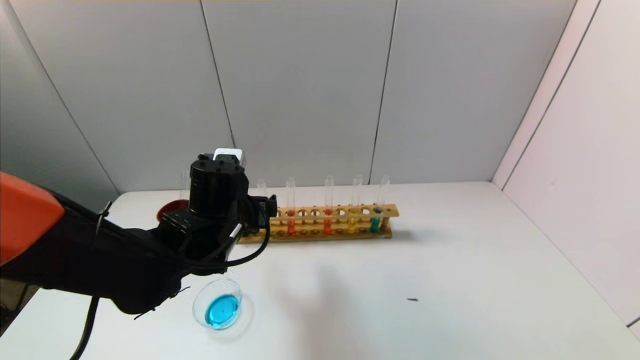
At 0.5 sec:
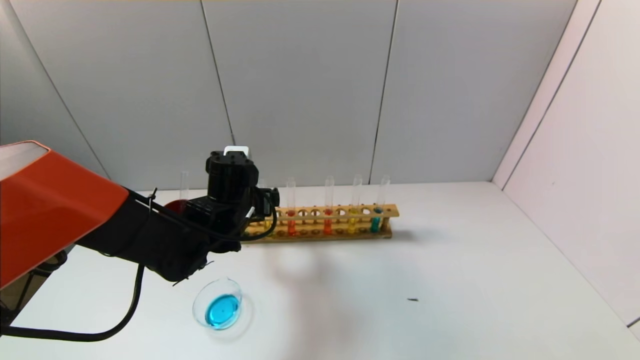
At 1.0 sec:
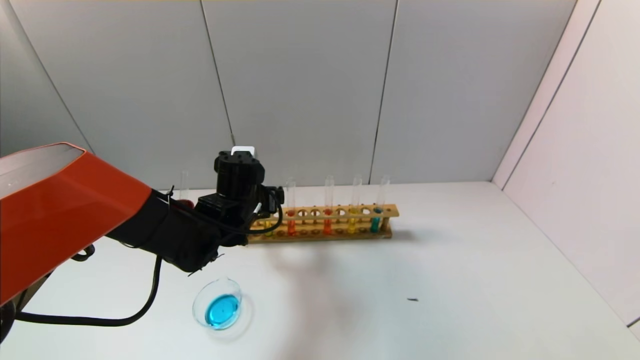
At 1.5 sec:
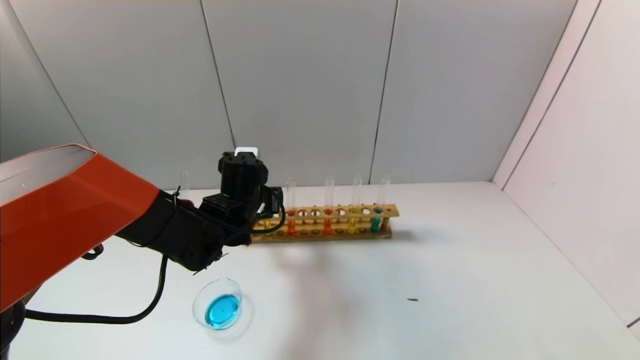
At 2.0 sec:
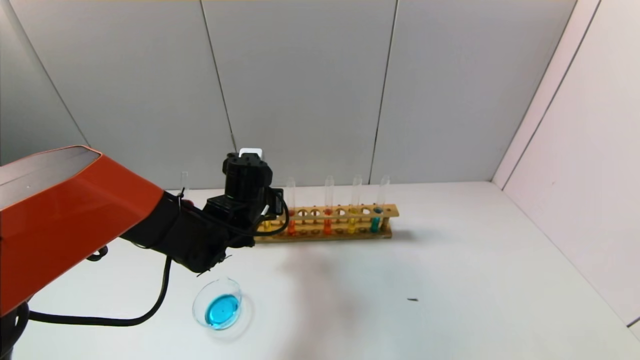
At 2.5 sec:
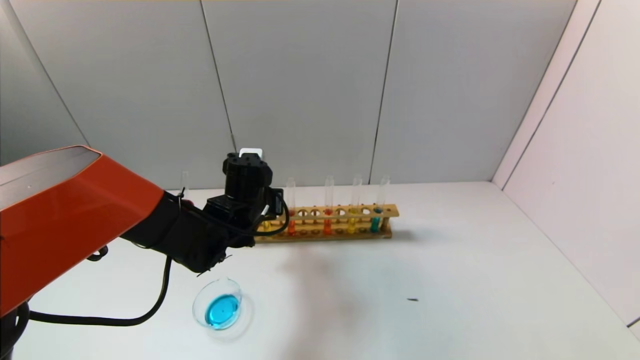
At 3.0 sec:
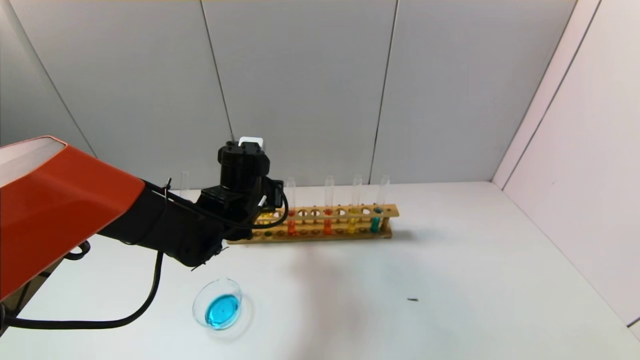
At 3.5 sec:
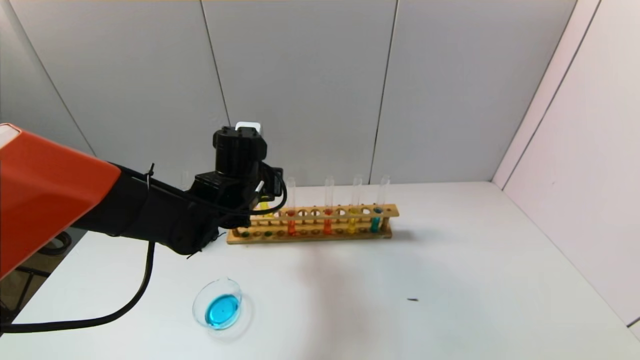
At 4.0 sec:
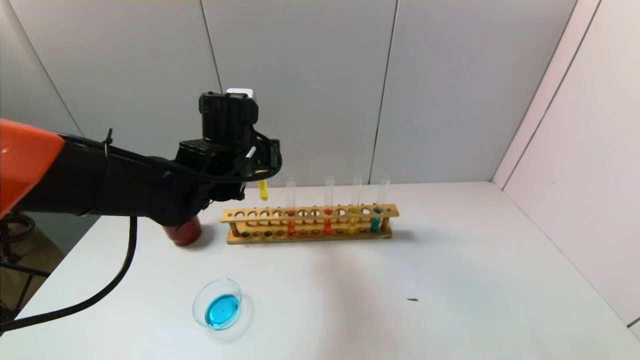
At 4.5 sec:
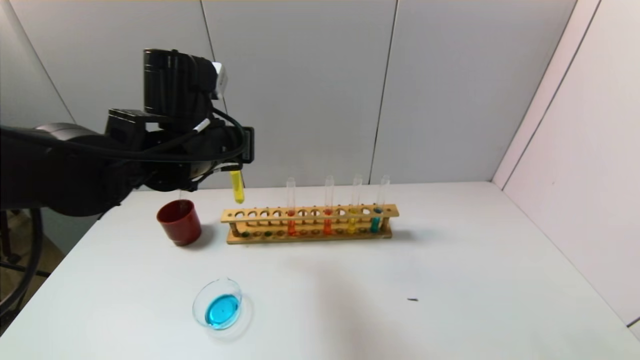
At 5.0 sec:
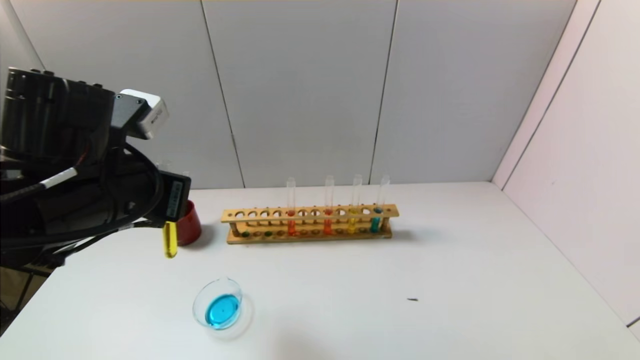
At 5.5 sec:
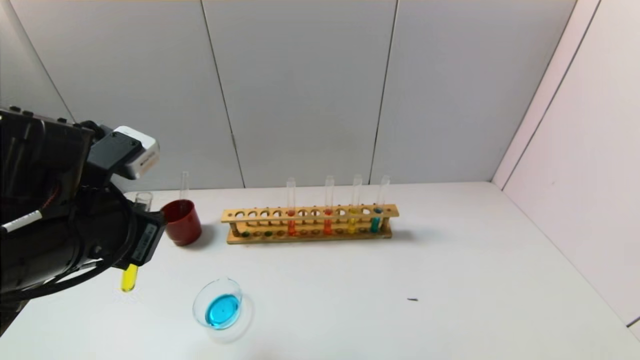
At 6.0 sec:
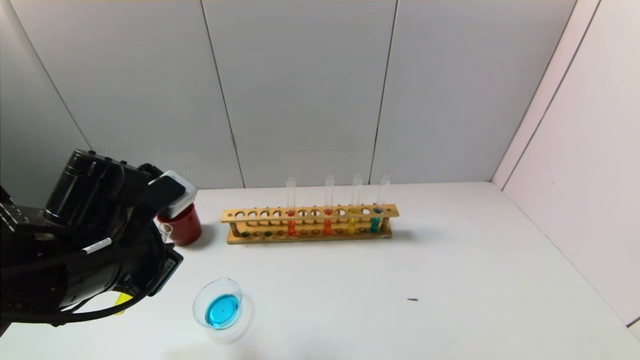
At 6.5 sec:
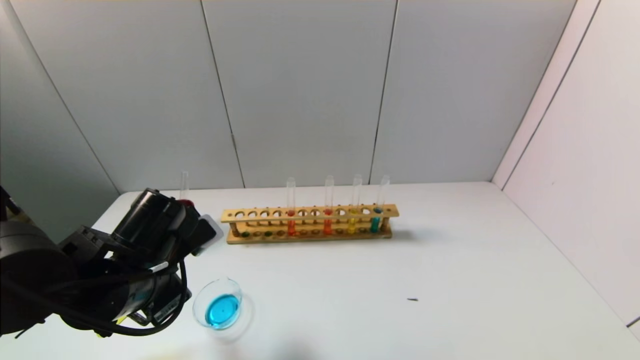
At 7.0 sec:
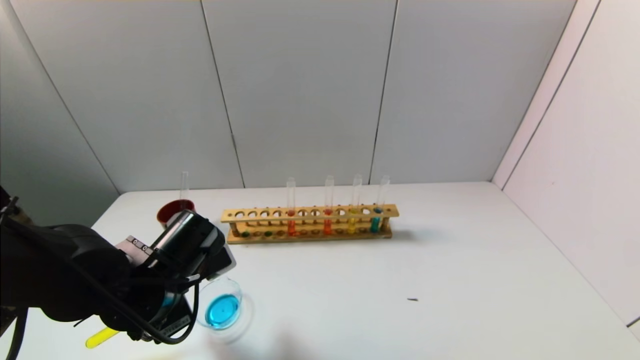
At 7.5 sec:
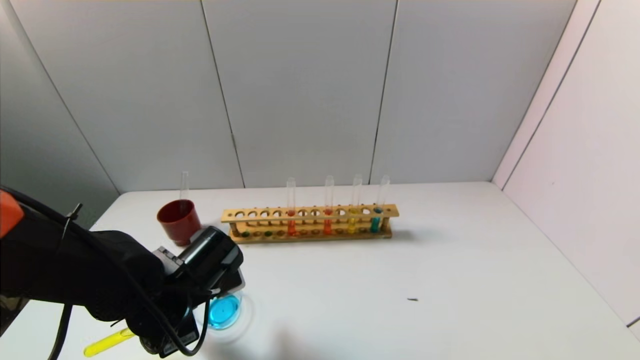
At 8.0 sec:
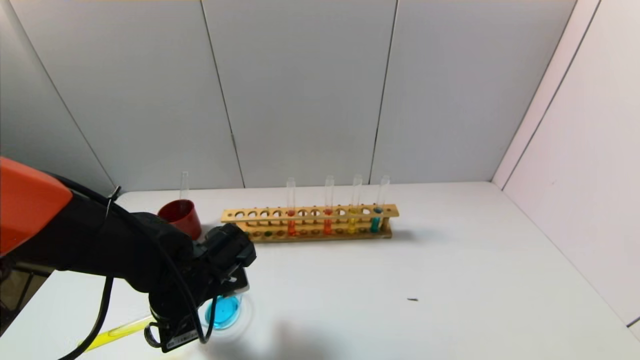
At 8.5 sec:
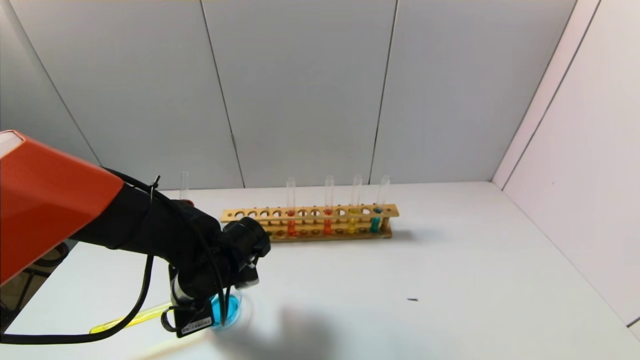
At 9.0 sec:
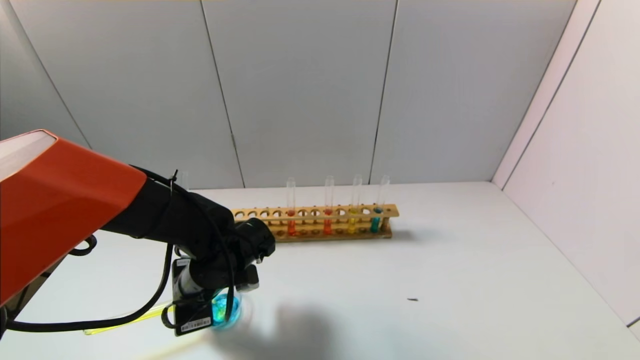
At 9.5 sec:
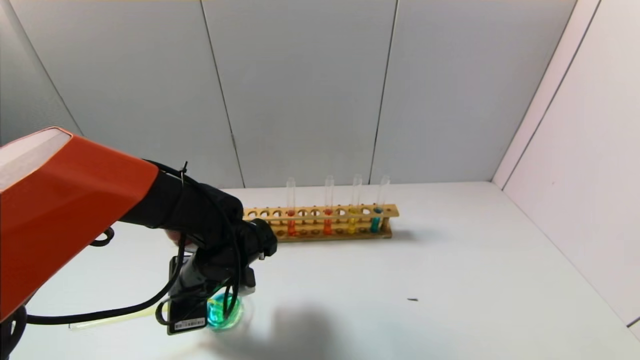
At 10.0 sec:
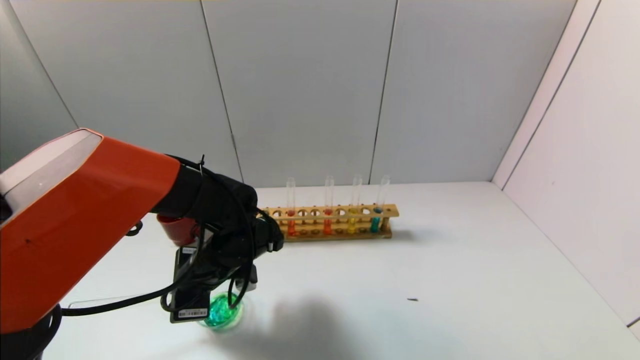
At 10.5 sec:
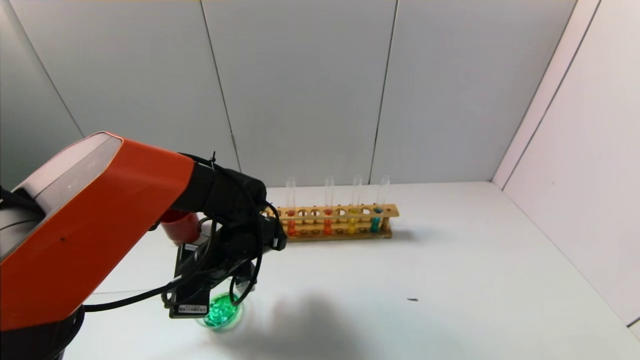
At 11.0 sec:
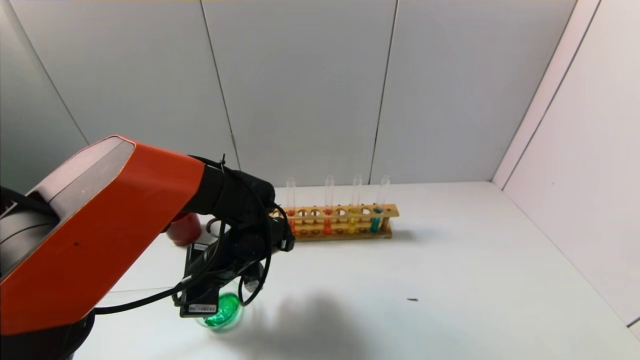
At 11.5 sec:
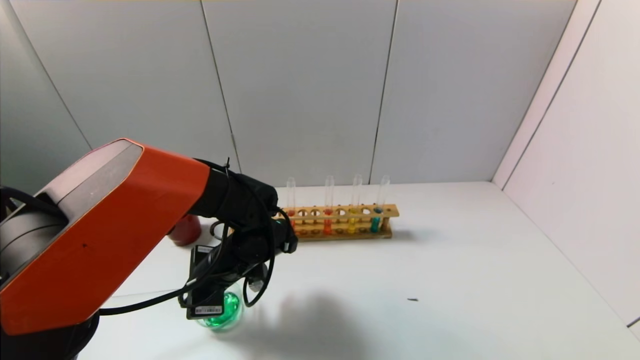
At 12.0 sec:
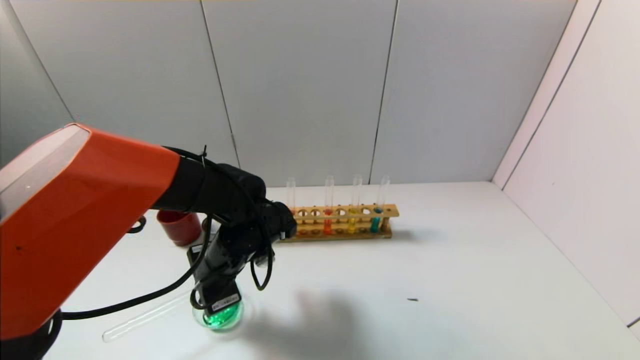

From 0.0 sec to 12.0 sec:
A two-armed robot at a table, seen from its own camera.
Task of the whole recording: pick up the test tube with yellow pigment and the test tube with blue pigment by grippers and pour them into the beaker.
Step, from 0.0 sec to 2.0 sec: Grasp the yellow reagent with the left gripper.
Step, from 2.5 sec to 11.5 sec: Pour the yellow reagent into the graduated cylinder with the left gripper.
From 0.0 sec to 2.0 sec: The left gripper is displaced forward by roughly 5 cm, and closes up.
From 2.0 sec to 4.0 sec: The left gripper heads upward, covering approximately 10 cm.
From 4.0 sec to 6.0 sec: The left gripper moves backward and to the left, about 15 cm.
From 6.0 sec to 8.0 sec: The left gripper is displaced downward by approximately 10 cm.
From 8.0 sec to 10.0 sec: The left gripper ends up some 5 cm from where it was.

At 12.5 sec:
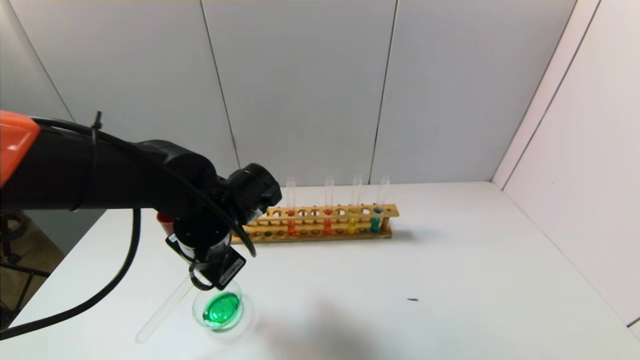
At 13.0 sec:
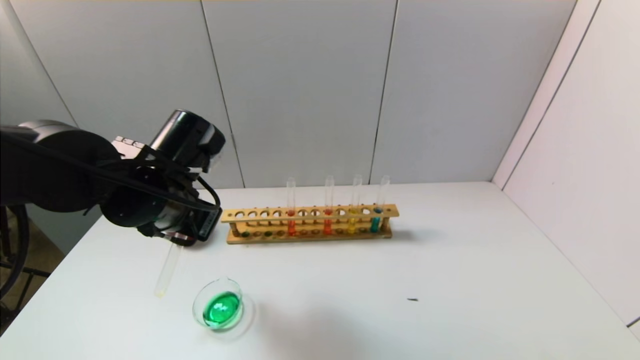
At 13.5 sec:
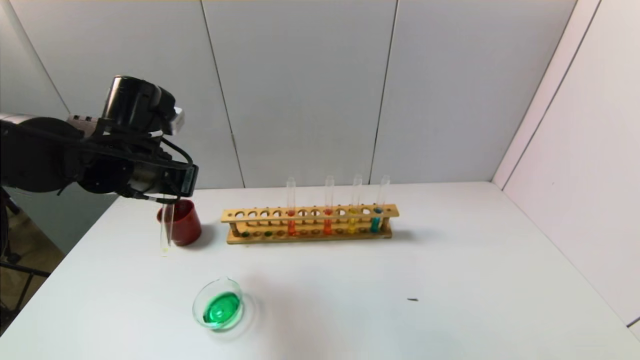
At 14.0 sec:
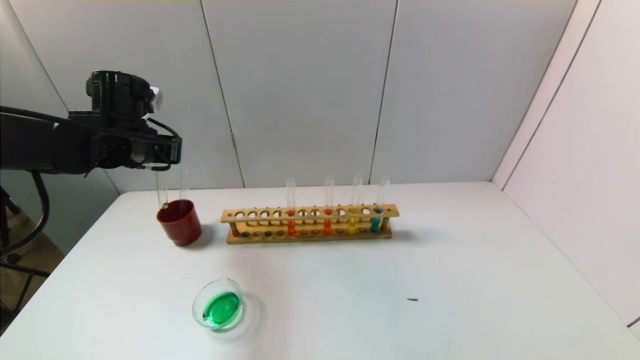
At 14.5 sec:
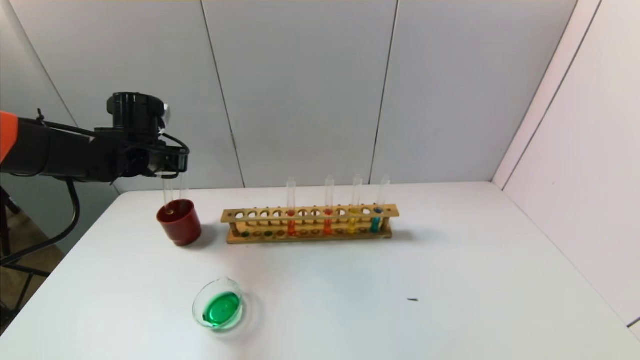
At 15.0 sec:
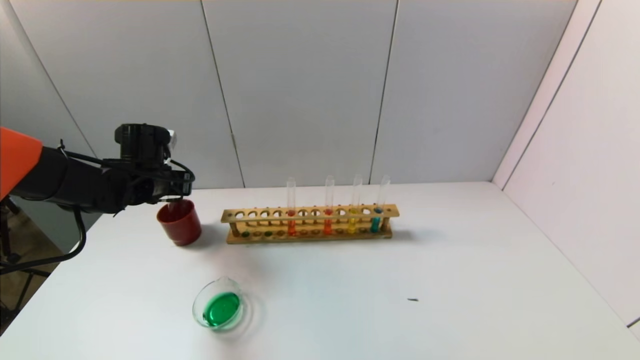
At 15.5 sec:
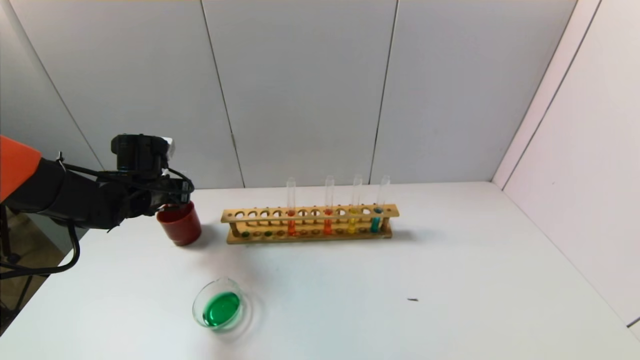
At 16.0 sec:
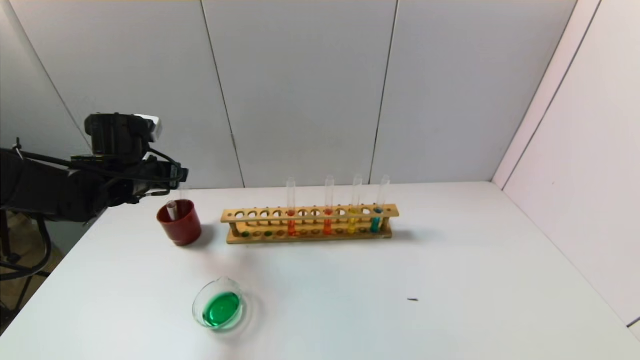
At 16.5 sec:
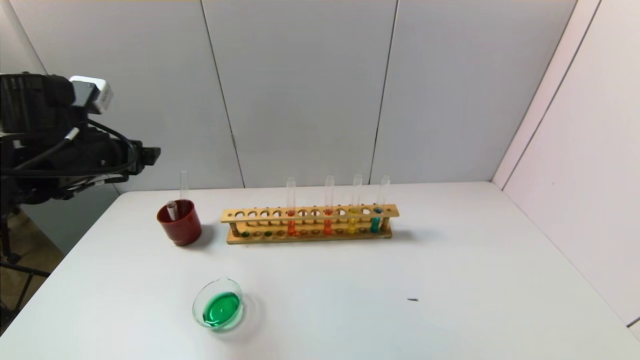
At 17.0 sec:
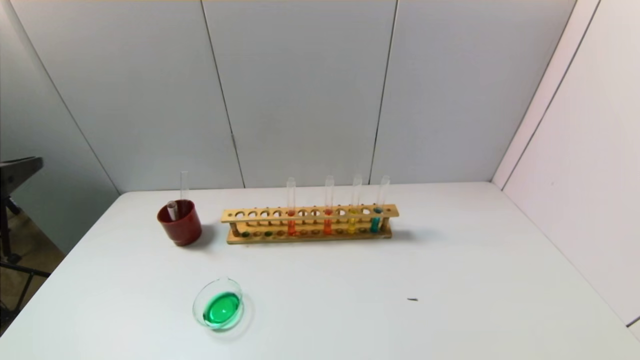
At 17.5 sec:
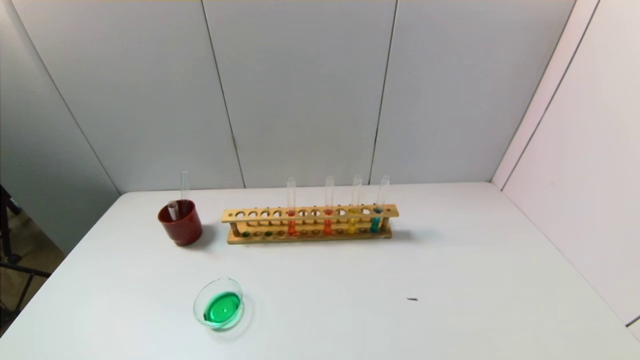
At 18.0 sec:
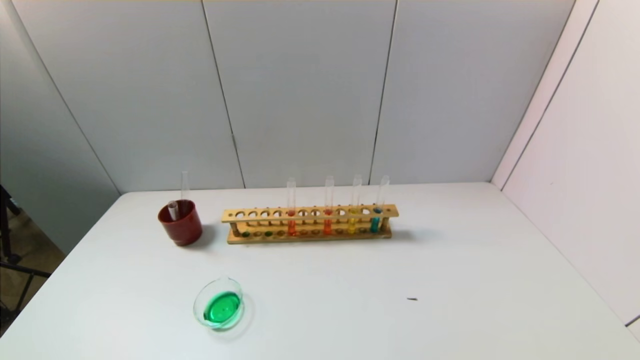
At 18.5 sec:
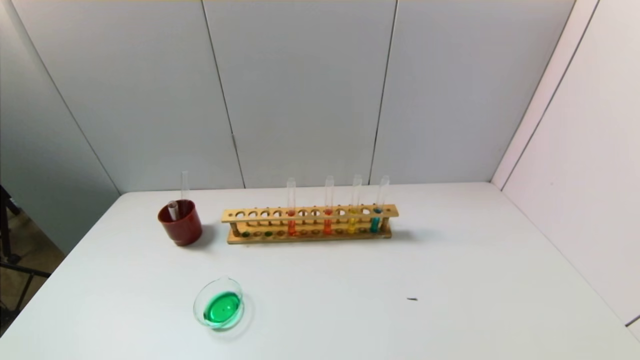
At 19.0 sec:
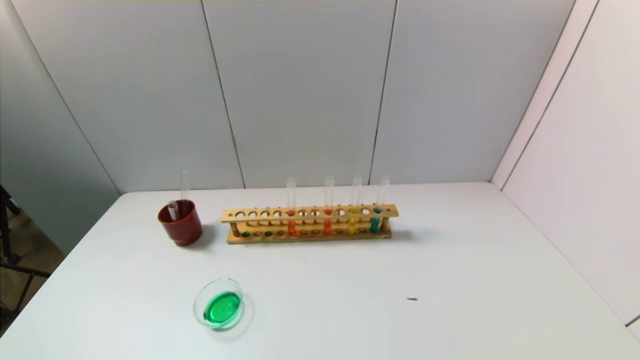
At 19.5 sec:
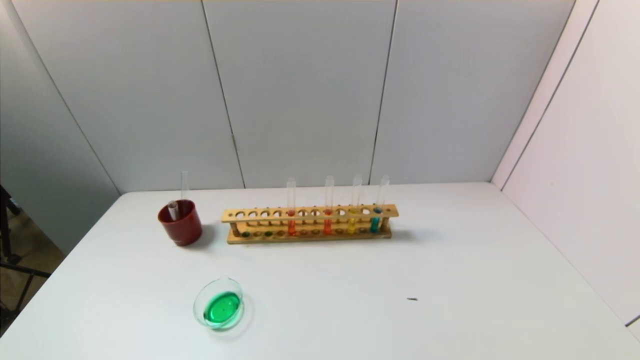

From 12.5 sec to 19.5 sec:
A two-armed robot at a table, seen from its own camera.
Task of the whole recording: pick up the test tube with yellow pigment and the test tube with blue pigment by grippers and pour them into the beaker.
Step, from 12.5 sec to 16.5 sec: Place the test tube into the brown cup with the left gripper.
From 12.5 sec to 14.5 sec: The left gripper is displaced to the left and forward by roughly 20 cm.
From 14.5 sec to 16.0 sec: The left gripper opens up.
From 16.0 sec to 17.5 sec: The left gripper is displaced backward by approximately 40 cm.
